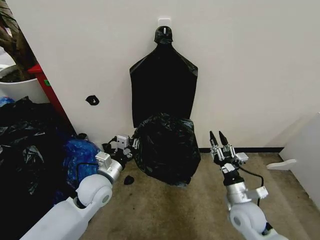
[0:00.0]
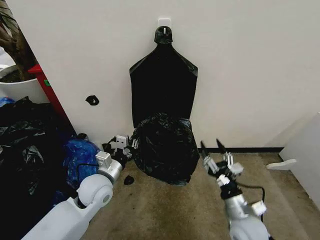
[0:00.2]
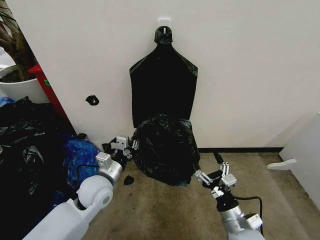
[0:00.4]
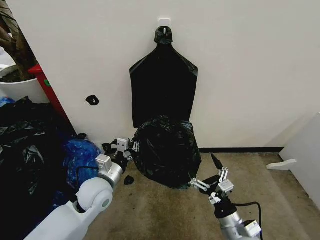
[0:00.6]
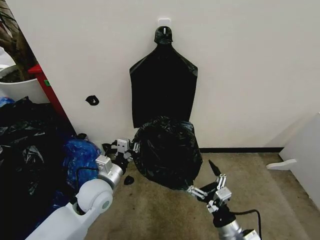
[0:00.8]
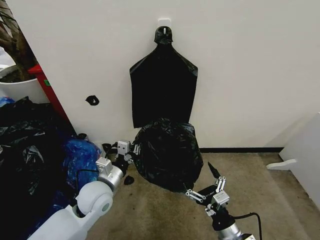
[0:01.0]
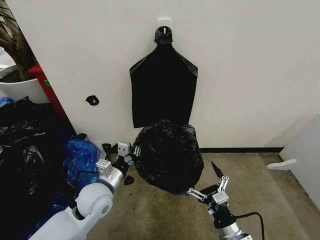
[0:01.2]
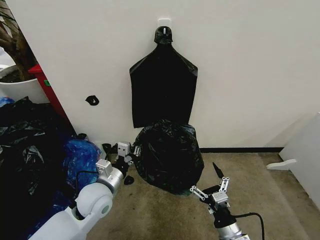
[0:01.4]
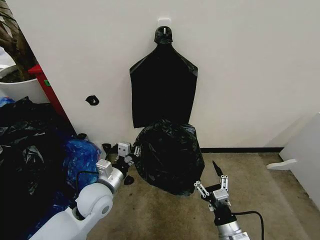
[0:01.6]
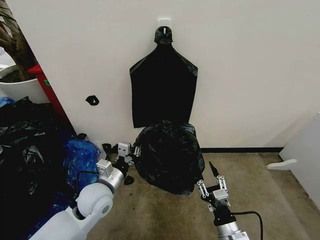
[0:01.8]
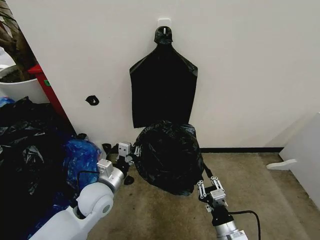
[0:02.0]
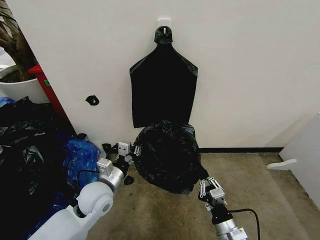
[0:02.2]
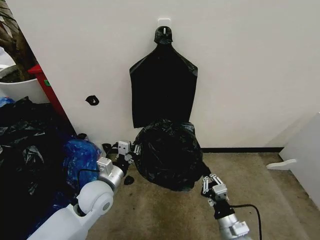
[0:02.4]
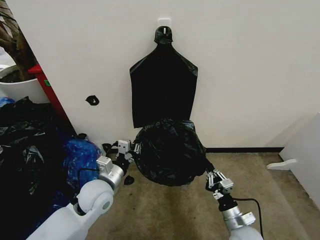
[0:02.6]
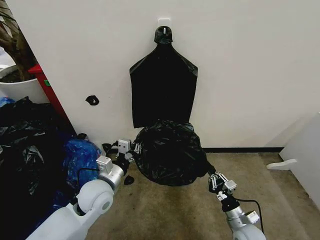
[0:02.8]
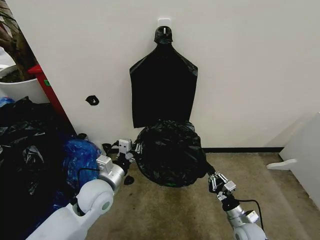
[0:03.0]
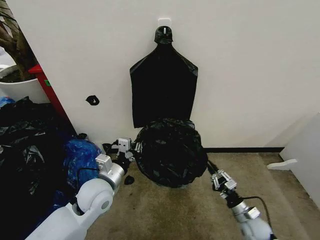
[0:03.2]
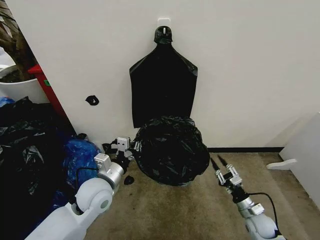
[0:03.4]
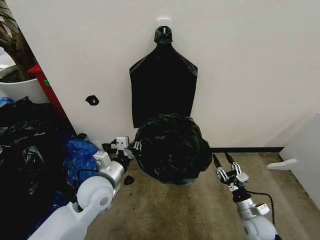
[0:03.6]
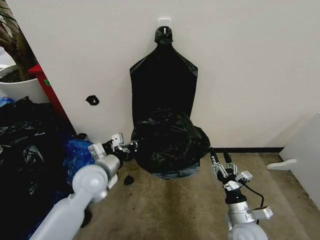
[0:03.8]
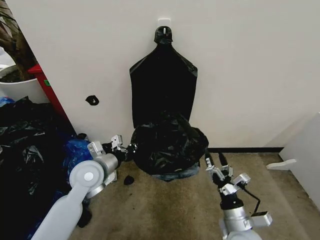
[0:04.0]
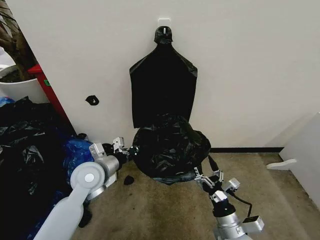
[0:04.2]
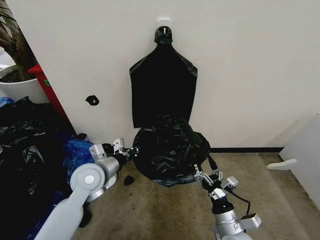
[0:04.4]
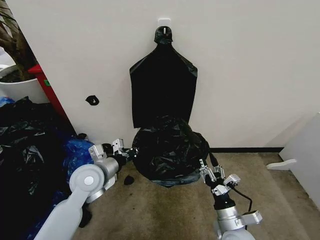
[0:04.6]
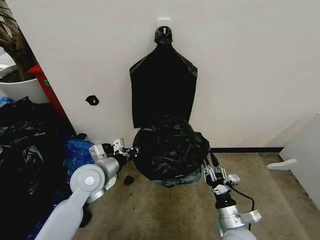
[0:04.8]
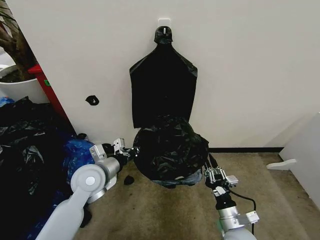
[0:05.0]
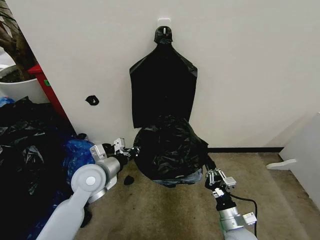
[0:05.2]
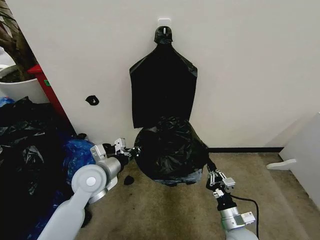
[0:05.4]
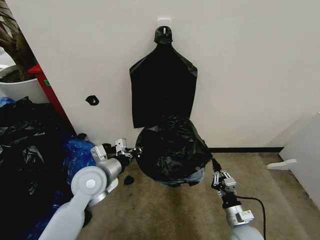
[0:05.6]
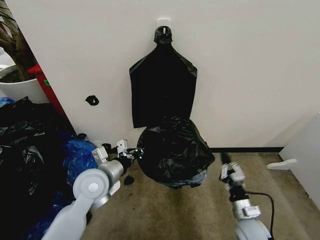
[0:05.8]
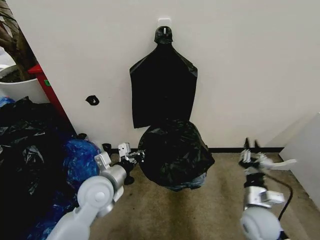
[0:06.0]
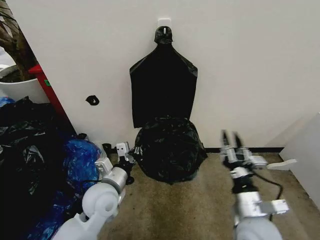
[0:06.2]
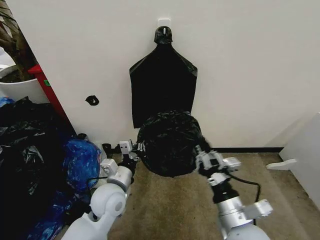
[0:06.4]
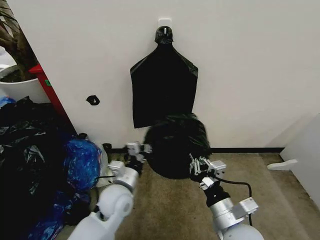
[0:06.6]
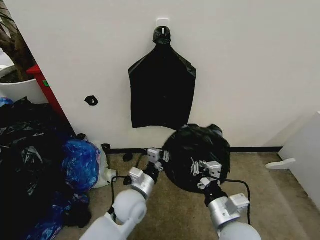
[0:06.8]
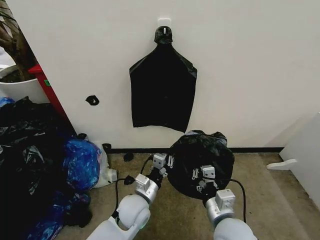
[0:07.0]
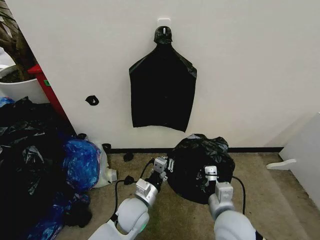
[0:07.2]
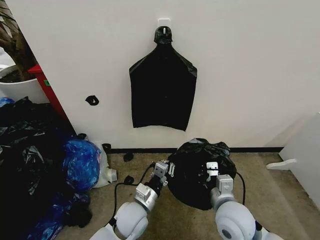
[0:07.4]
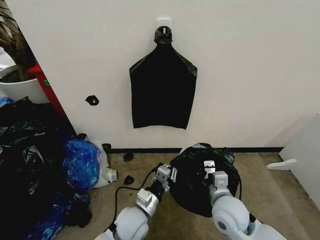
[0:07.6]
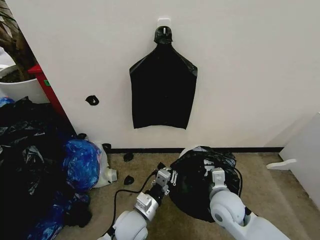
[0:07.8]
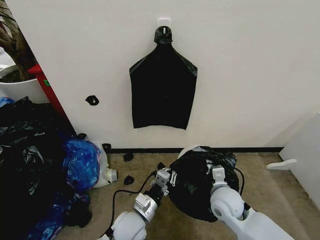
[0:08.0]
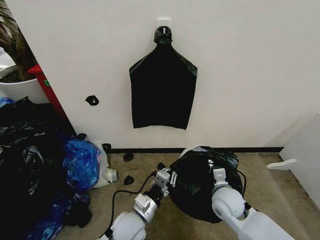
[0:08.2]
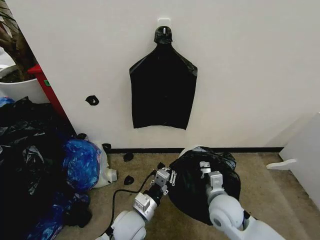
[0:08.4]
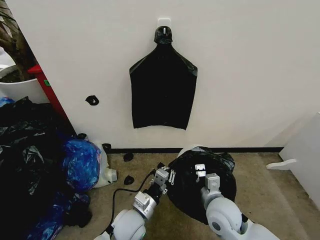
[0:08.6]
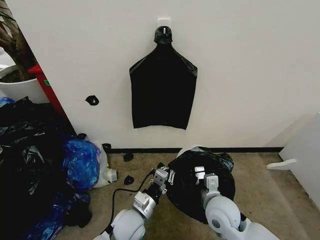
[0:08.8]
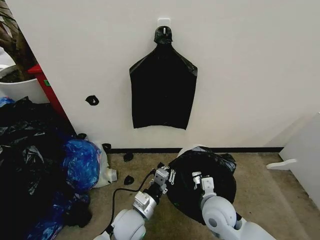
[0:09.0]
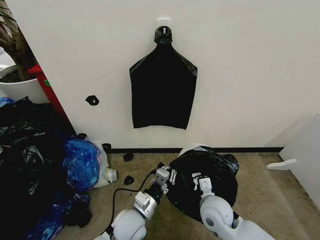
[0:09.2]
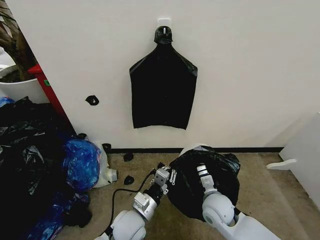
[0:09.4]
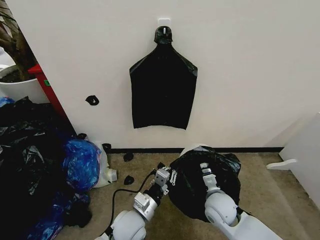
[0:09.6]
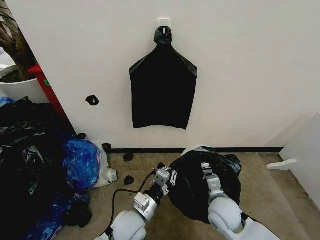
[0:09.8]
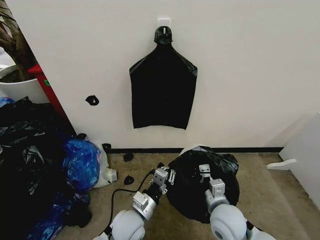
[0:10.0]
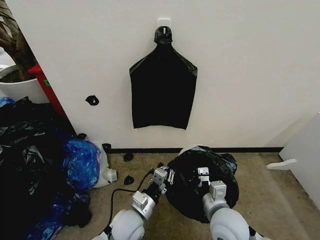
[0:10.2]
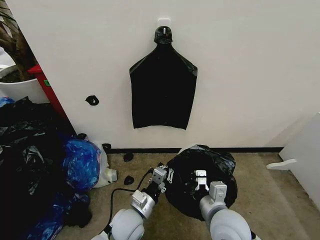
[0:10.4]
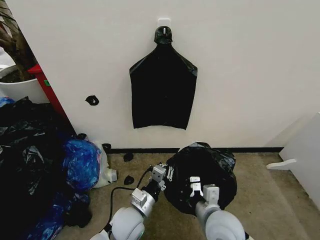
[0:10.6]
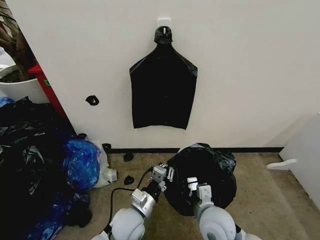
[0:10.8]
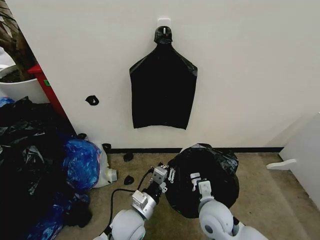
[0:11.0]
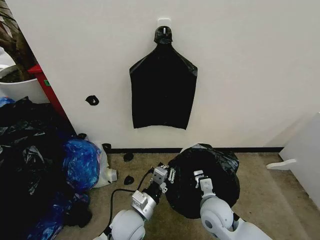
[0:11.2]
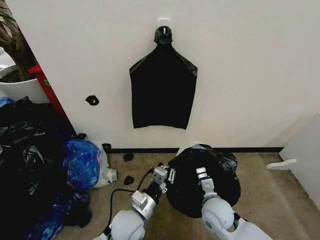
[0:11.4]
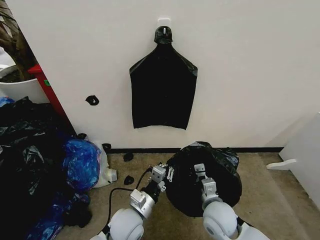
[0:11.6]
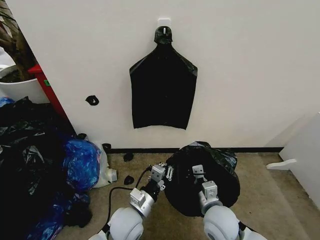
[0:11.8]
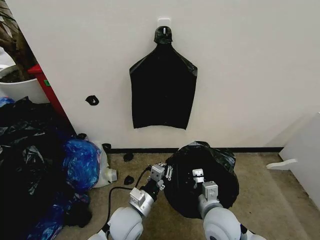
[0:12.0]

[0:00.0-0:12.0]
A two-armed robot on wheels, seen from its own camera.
Task of the whole recording: Place the garbage bag over the trash bin.
0:00.0 to 0:01.6: The right gripper shifts approximately 10 cm backward.
0:01.6 to 0:03.0: The right gripper shifts about 15 cm downward, to the right and forward, and closes.
0:03.0 to 0:04.4: The left gripper shifts by roughly 5 cm; the right gripper goes approximately 15 cm upward, to the left and backward, and opens up.
0:04.4 to 0:06.0: The left gripper changes place by some 5 cm, while the right gripper travels to the right and forward by about 10 cm, moves some 5 cm downward and comes back, and closes.
0:06.0 to 0:07.6: The left gripper heads downward, to the right and backward, covering about 15 cm; the right gripper travels to the left by about 10 cm.
0:09.0 to 0:10.4: The right gripper travels backward and upward by some 10 cm.

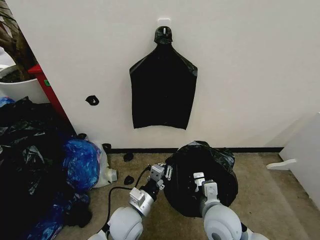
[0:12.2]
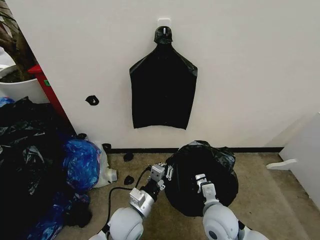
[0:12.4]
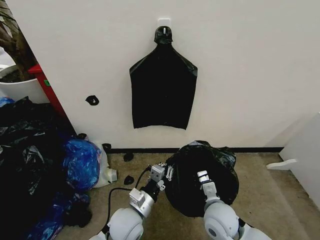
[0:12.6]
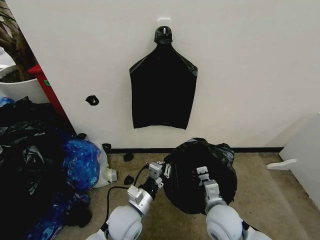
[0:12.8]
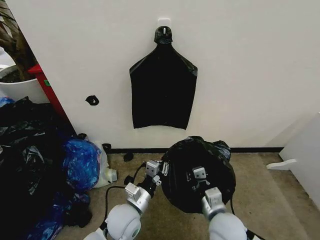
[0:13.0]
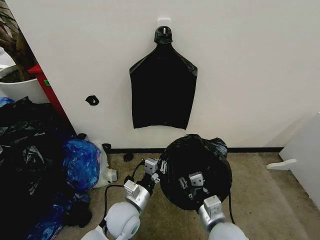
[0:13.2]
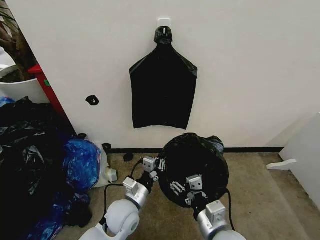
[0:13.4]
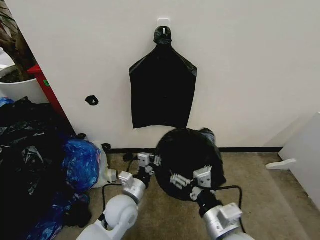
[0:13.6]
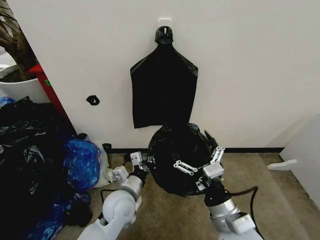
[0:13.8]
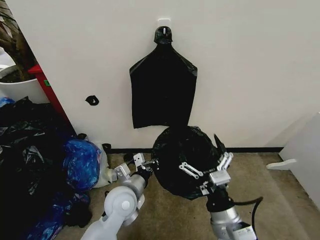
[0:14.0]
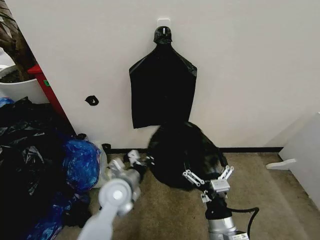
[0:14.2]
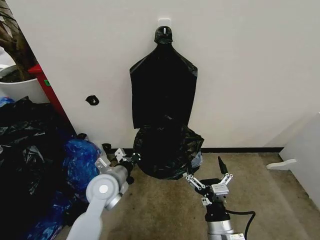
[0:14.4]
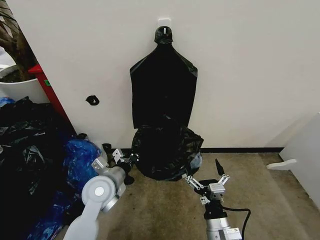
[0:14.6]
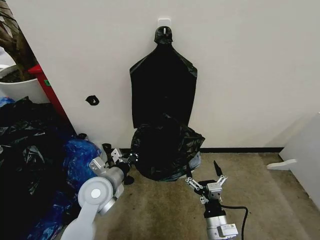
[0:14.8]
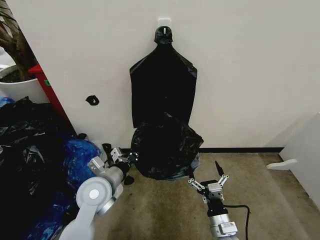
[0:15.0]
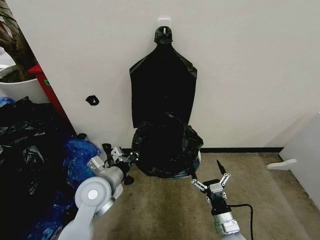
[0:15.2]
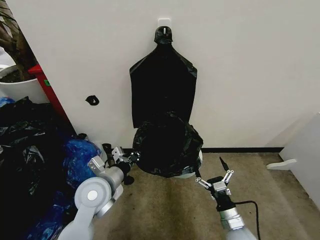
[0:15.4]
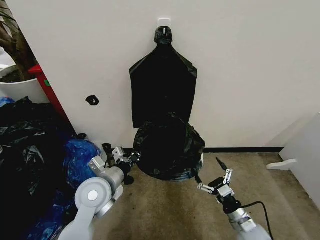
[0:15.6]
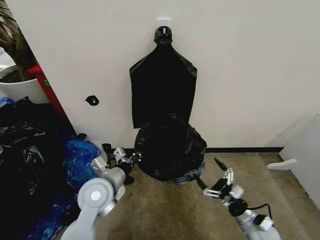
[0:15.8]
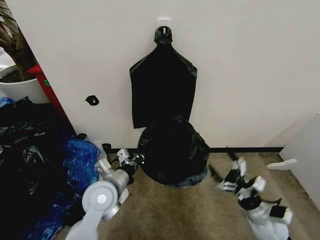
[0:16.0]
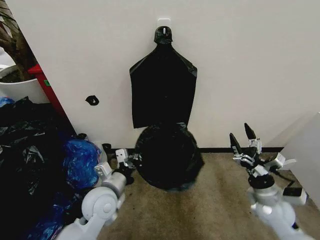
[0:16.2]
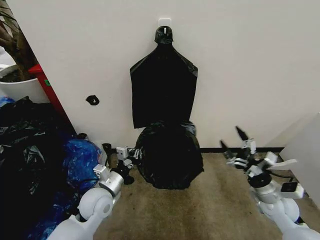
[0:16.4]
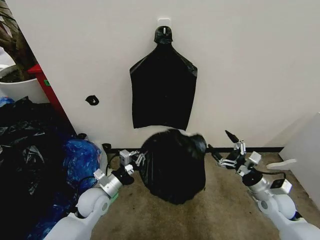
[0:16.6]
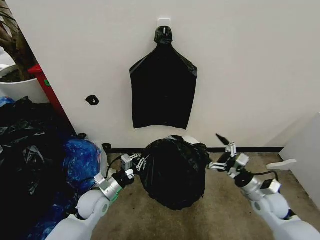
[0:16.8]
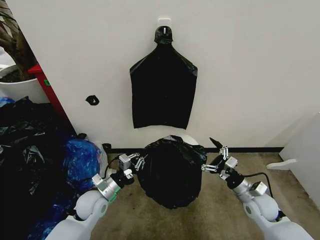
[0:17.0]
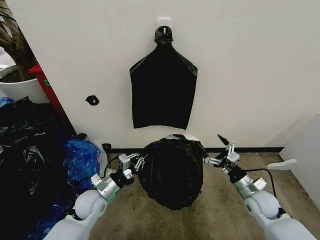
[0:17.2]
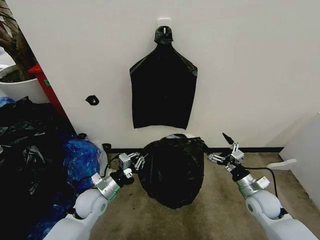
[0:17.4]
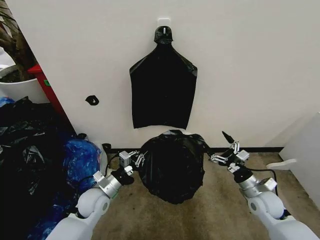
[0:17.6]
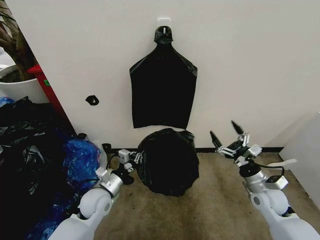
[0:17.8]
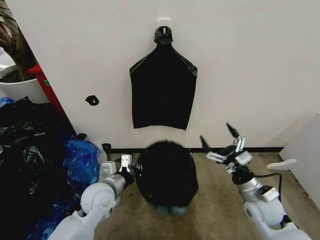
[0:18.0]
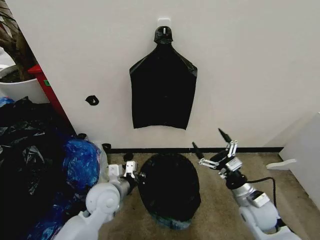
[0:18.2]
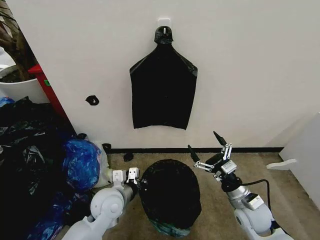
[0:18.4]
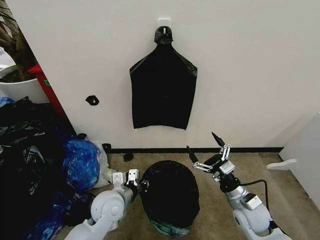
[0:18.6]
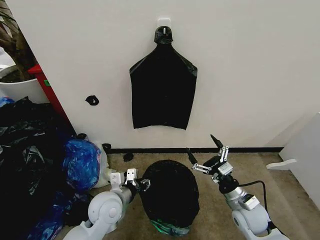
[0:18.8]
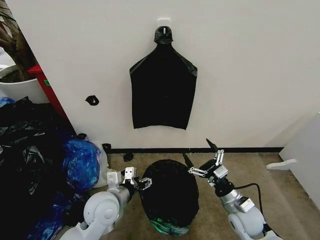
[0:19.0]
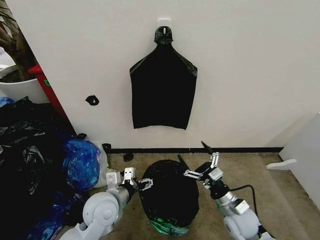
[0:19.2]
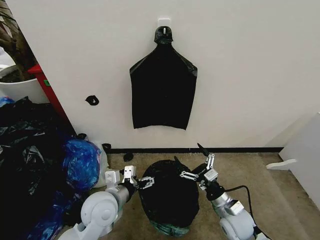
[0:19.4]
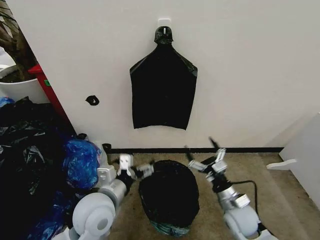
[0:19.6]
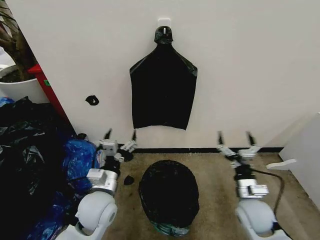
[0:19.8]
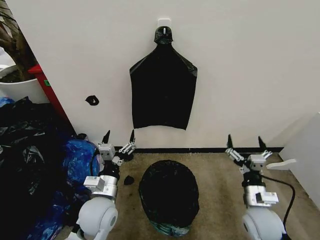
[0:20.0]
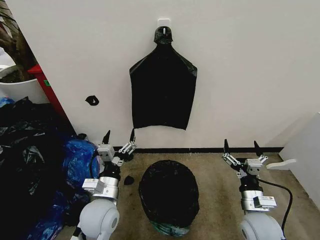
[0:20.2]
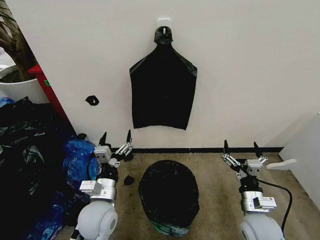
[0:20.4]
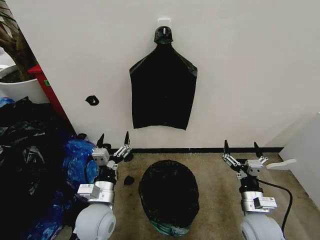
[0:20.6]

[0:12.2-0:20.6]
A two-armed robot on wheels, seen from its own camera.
Task of the whole recording: Place the garbage bag over the trash bin.
0:12.2 to 0:13.6: The right gripper travels backward by about 5 cm, and opens its fingers.
0:13.6 to 0:15.0: The left gripper is displaced upward and to the left by about 10 cm. Meanwhile the right gripper heads downward, covering about 15 cm.
0:15.0 to 0:16.4: The right gripper moves to the right and forward, about 20 cm; the left gripper goes about 5 cm downward.
0:17.8 to 0:19.2: The left gripper travels upward by some 5 cm, and opens up; the right gripper travels to the left and downward by approximately 10 cm.
0:19.2 to 0:20.6: The right gripper shifts by approximately 5 cm.

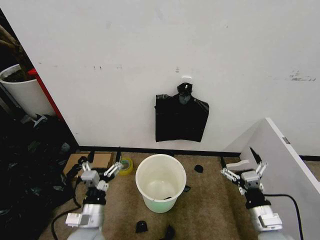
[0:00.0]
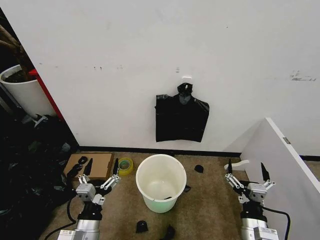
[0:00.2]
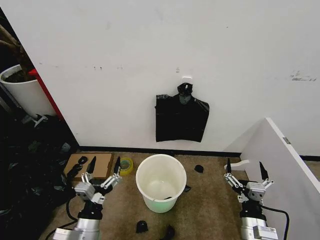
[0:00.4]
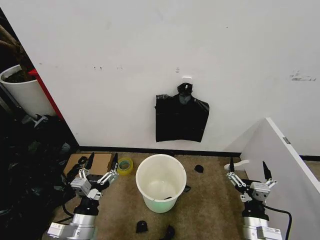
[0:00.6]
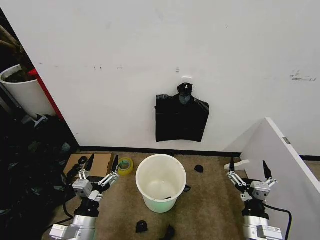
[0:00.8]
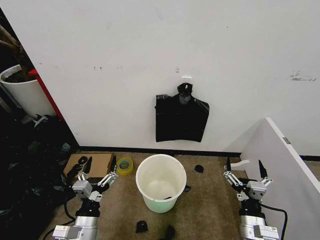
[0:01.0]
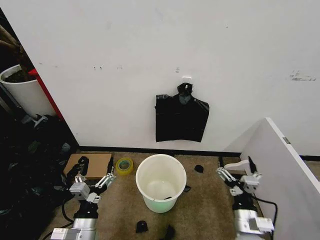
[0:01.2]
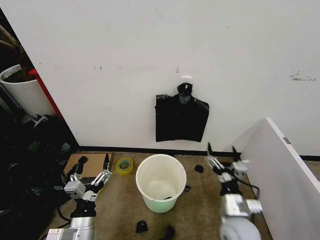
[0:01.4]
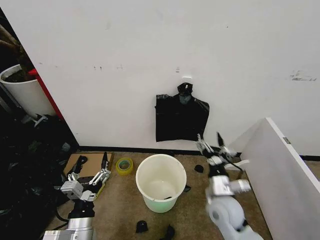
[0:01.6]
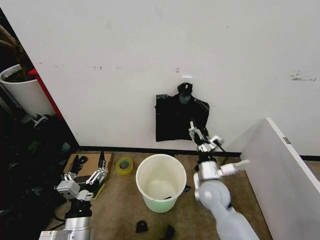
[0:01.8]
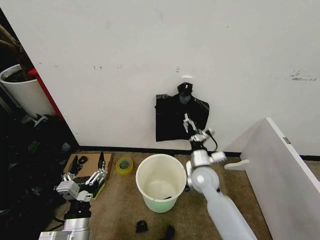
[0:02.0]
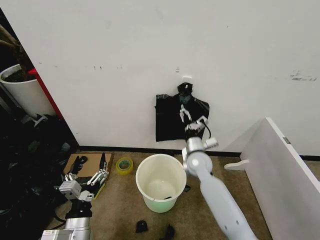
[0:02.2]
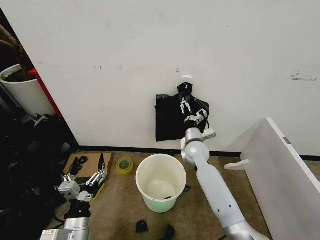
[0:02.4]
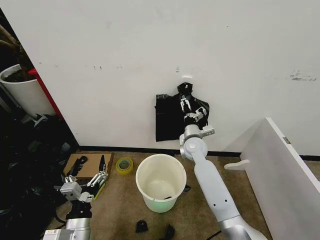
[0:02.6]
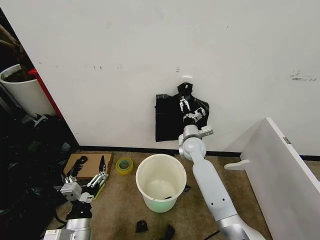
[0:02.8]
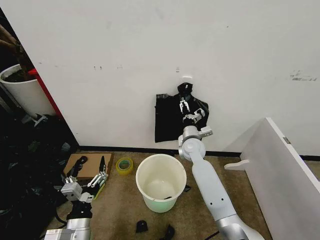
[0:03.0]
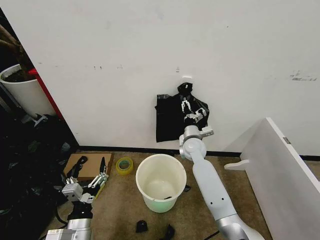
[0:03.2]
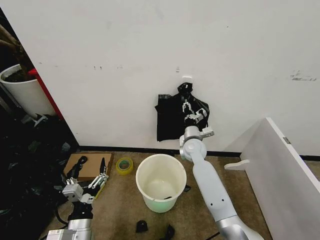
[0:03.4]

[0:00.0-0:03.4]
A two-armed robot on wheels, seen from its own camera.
Task of the whole recording: Place the garbage bag over the trash bin.
0:01.6 to 0:03.4: The right gripper moves forward, about 20 cm, and closes its fingers.
